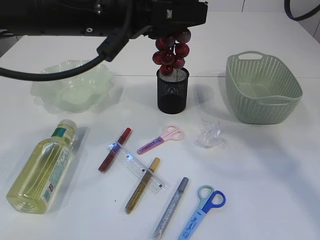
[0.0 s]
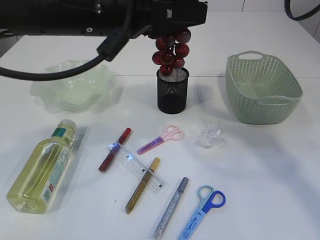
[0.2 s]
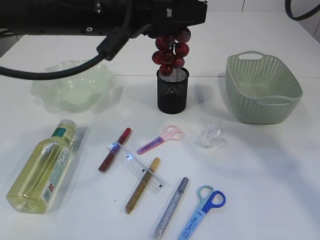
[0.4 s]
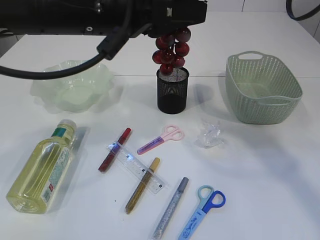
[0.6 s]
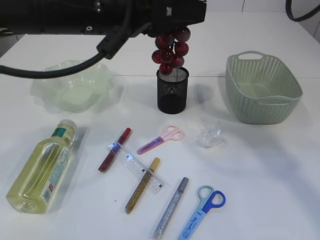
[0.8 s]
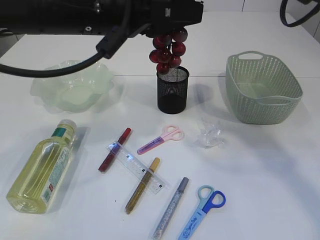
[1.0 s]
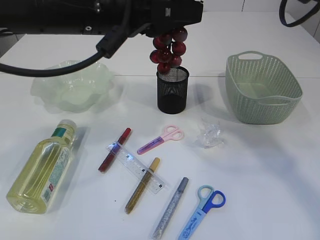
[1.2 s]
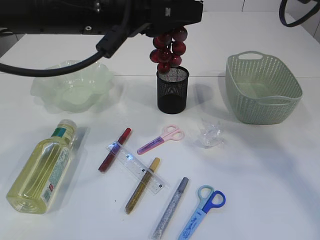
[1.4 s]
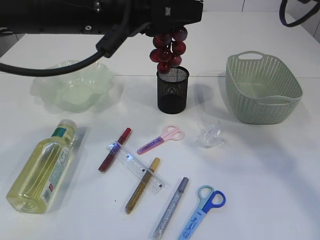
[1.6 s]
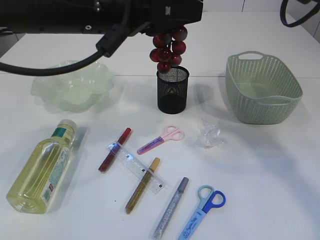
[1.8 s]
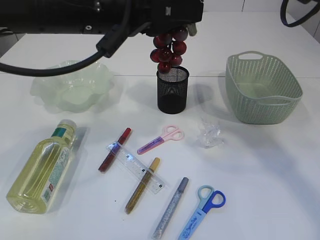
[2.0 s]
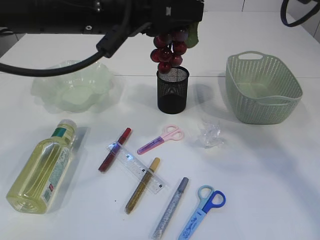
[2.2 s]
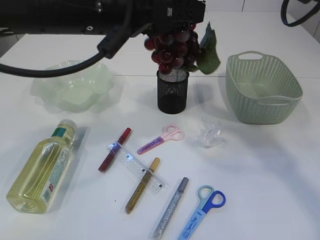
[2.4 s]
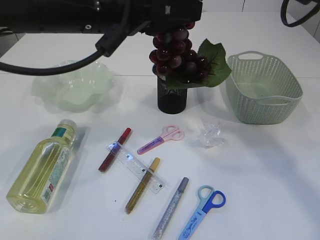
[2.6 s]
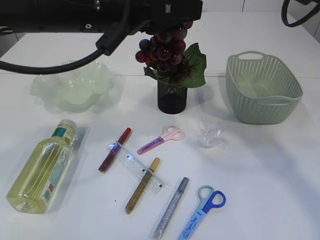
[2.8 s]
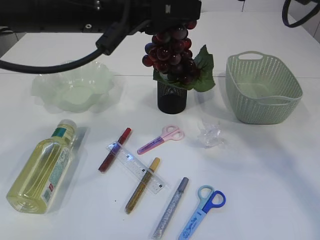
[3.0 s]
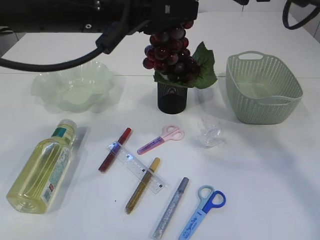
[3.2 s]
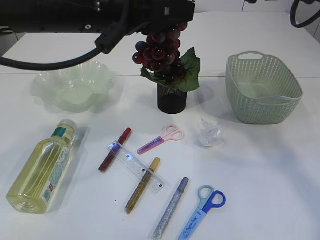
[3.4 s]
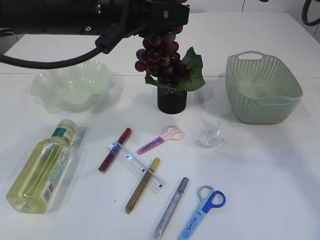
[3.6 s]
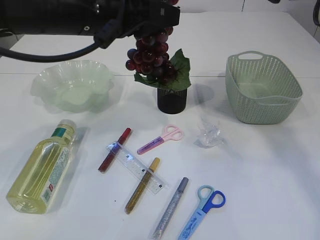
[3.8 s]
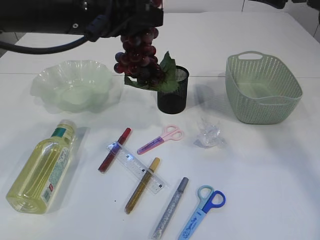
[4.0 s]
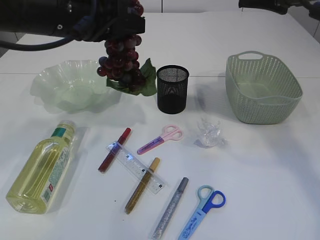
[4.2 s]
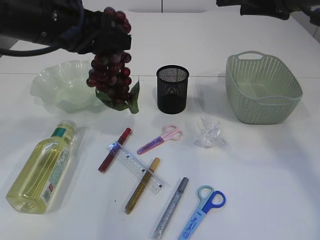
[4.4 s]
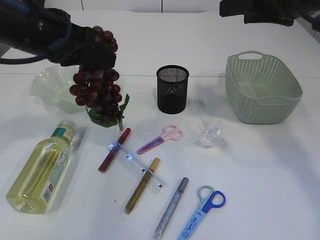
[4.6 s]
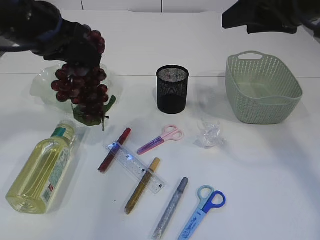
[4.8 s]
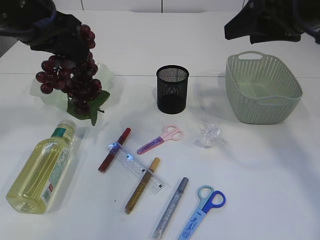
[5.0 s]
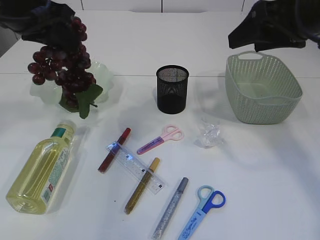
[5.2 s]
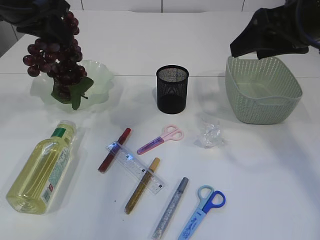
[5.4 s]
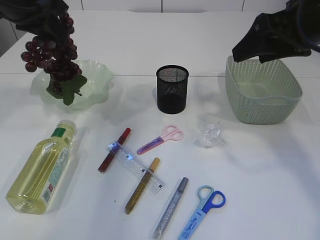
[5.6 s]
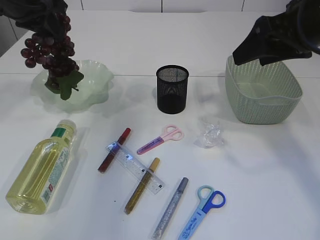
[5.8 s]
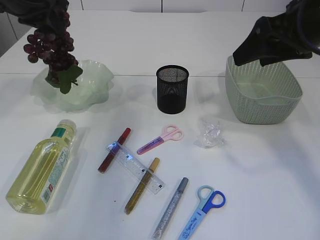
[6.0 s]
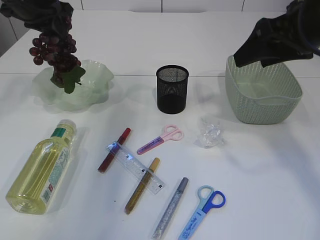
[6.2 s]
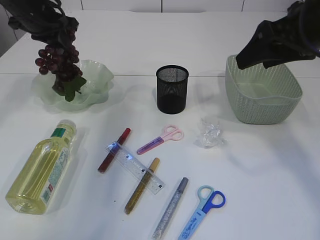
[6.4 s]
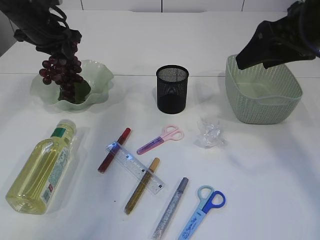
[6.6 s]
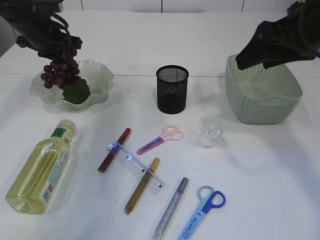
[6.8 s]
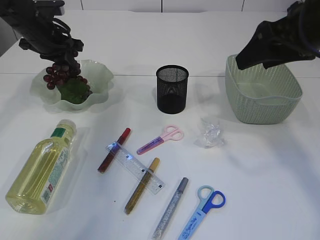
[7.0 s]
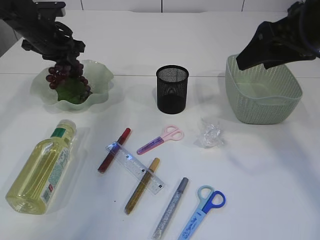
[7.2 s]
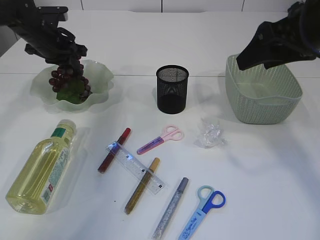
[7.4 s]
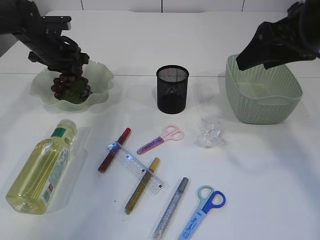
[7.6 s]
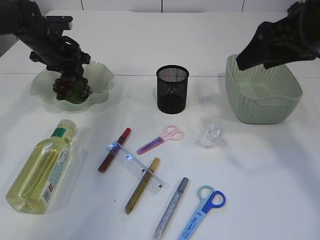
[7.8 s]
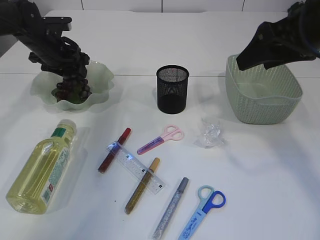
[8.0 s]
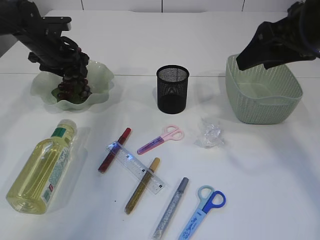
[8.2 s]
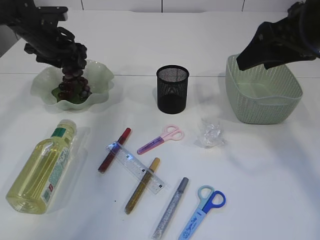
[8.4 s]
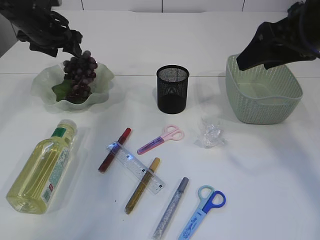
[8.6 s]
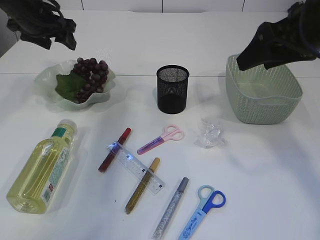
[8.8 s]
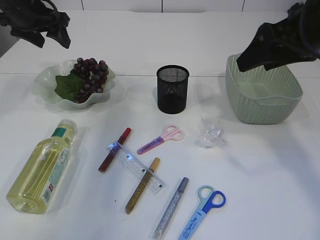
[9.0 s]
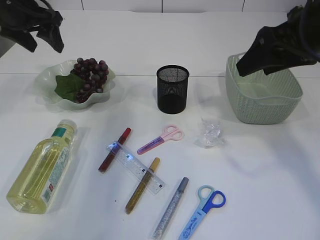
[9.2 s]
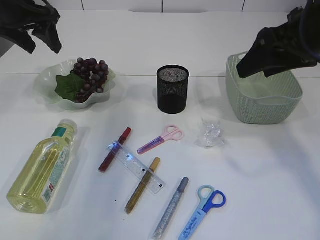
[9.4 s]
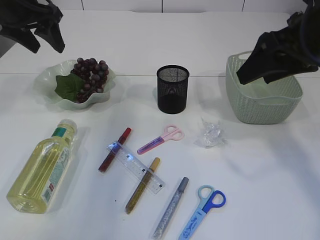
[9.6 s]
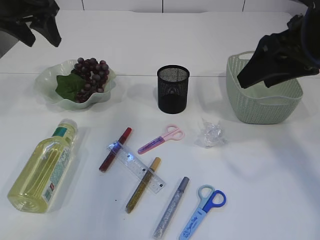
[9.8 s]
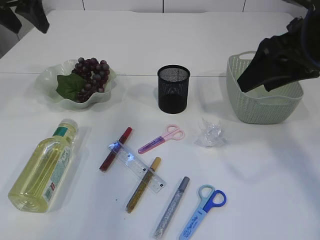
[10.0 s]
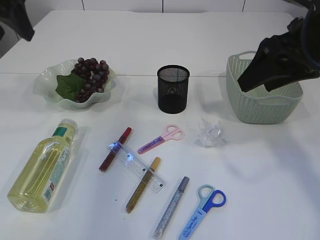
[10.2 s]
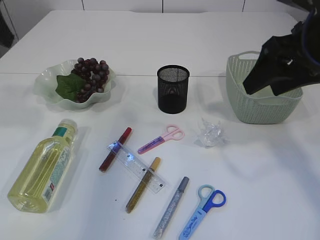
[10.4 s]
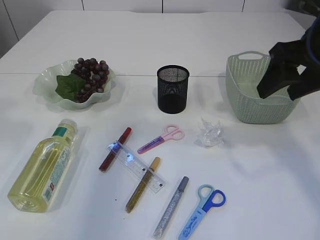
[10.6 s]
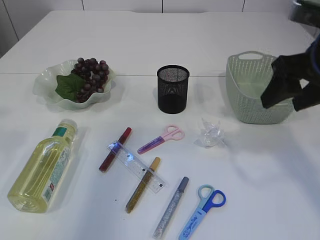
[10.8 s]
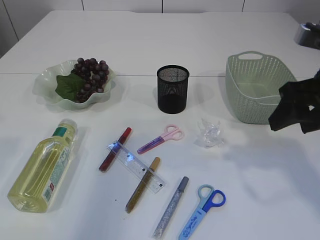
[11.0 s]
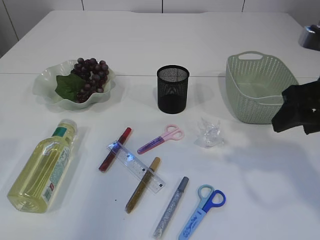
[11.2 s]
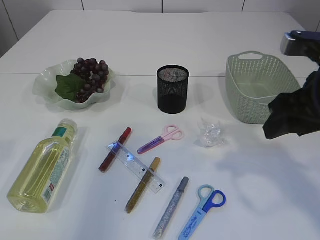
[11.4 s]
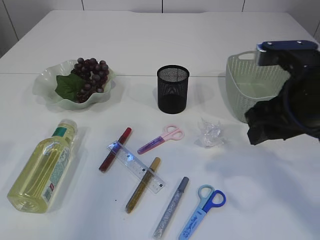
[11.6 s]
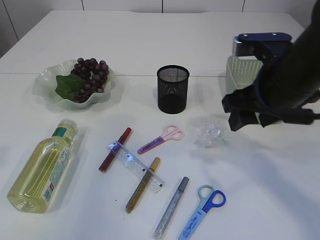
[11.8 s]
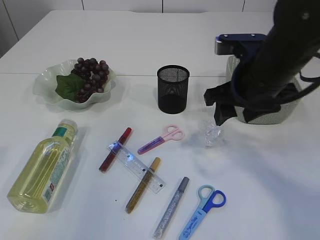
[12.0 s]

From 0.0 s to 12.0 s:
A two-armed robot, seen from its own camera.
Step, from 0.0 s to 4.2 s: Hand over the grapes.
Step, from 4.4 s to 8.8 s: Place the grapes in the plate.
From 0.0 s to 1.6 s: There are only small adjustments of the grippers.
From 1.6 s to 3.0 s: The right gripper opens.
From 3.0 s to 4.4 s: The left gripper travels to the left by some 5 cm; the right gripper goes about 5 cm to the right.
From 4.4 s to 6.0 s: The left gripper is displaced forward and to the left by about 15 cm.
From 6.0 s to 7.6 s: The left gripper goes some 15 cm downward and forward.
From 7.6 s to 9.0 s: The left gripper goes roughly 10 cm upward, and opens its fingers.
From 9.0 s to 10.4 s: The left gripper moves backward and upward, some 20 cm.
From 10.4 s to 12.0 s: The left gripper shifts some 15 cm backward. The right gripper is displaced downward and to the left by approximately 10 cm.

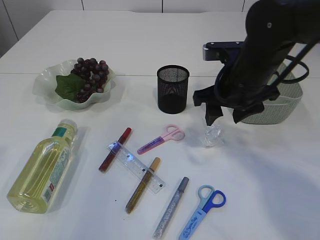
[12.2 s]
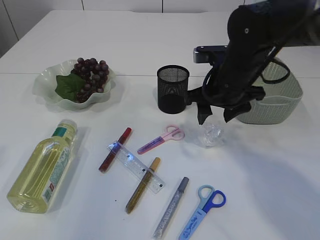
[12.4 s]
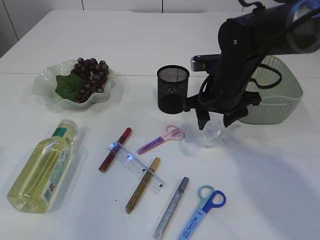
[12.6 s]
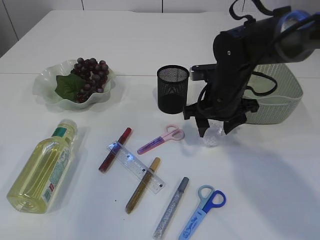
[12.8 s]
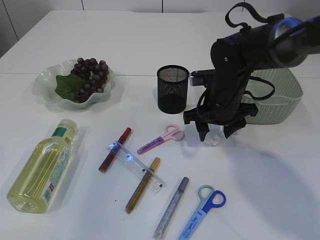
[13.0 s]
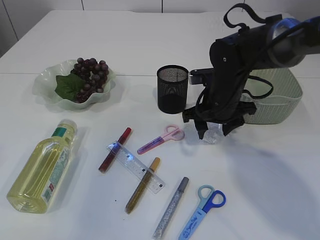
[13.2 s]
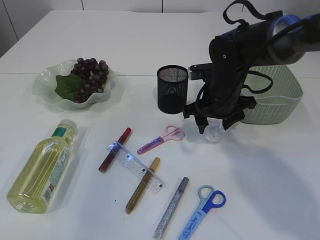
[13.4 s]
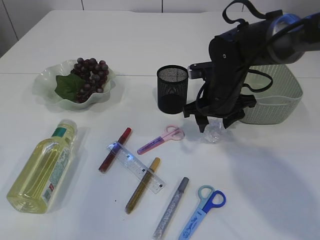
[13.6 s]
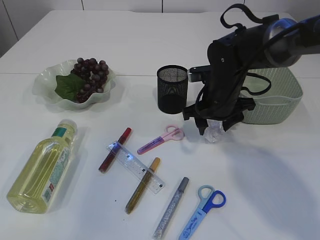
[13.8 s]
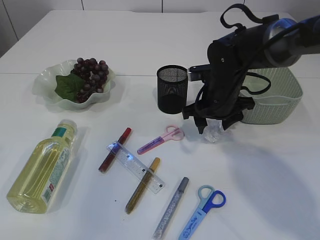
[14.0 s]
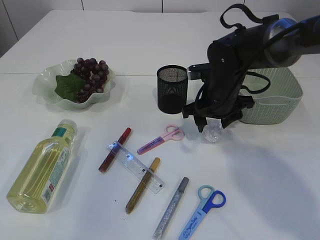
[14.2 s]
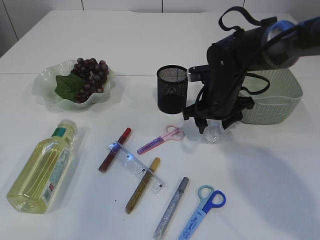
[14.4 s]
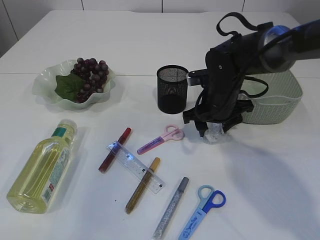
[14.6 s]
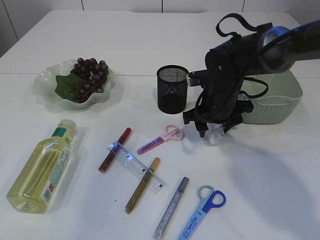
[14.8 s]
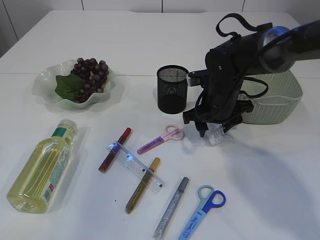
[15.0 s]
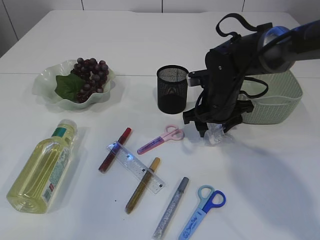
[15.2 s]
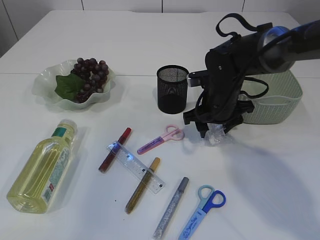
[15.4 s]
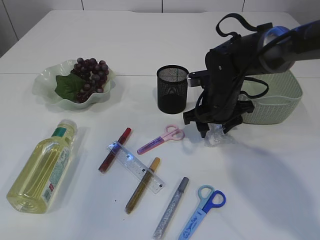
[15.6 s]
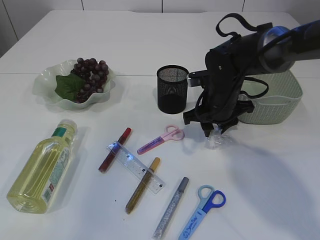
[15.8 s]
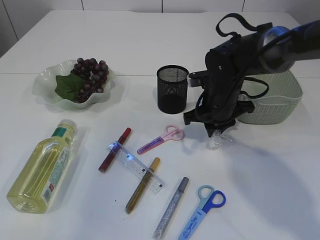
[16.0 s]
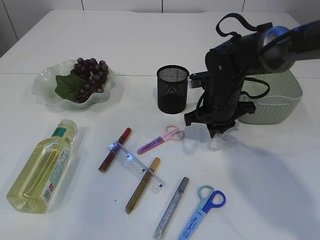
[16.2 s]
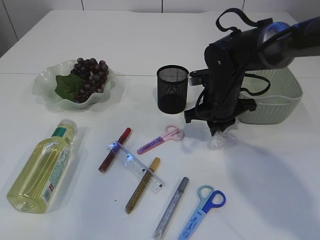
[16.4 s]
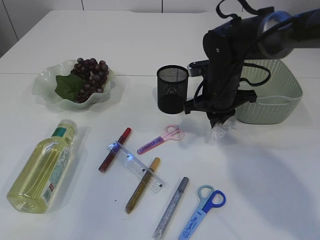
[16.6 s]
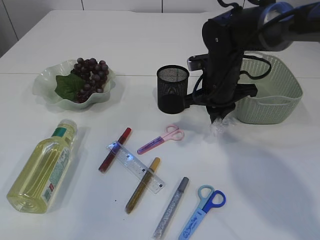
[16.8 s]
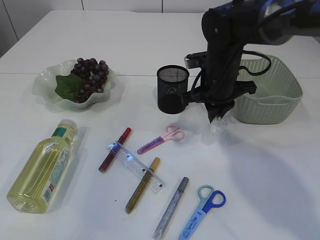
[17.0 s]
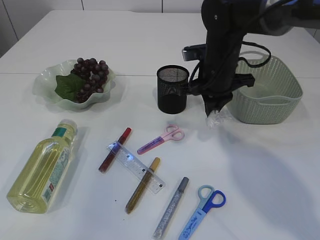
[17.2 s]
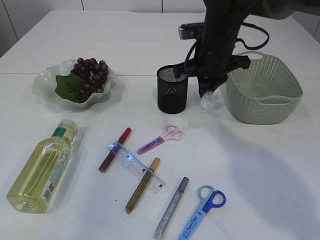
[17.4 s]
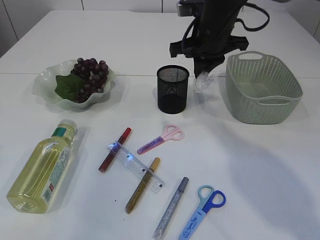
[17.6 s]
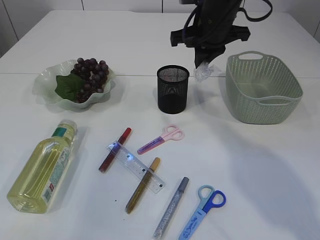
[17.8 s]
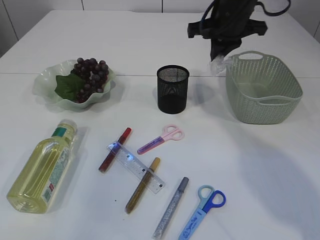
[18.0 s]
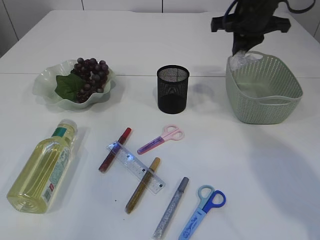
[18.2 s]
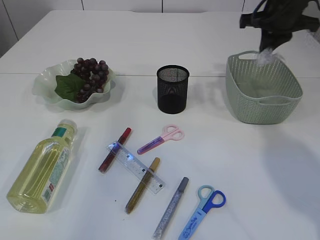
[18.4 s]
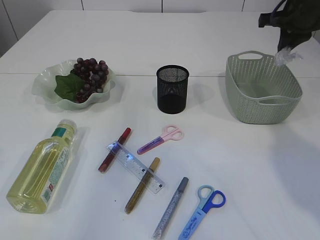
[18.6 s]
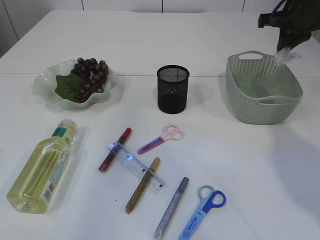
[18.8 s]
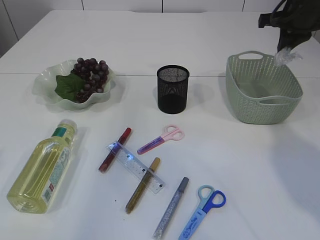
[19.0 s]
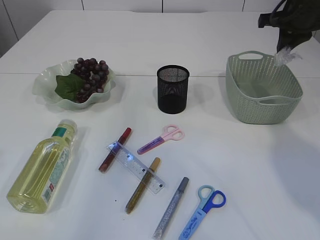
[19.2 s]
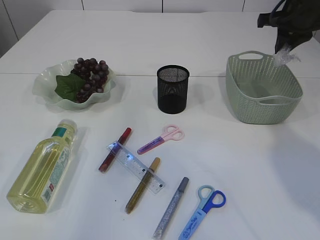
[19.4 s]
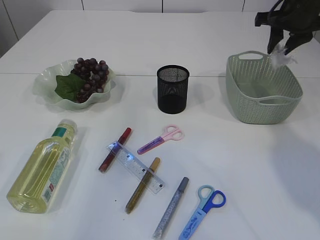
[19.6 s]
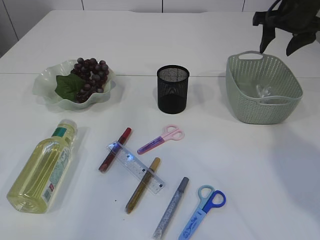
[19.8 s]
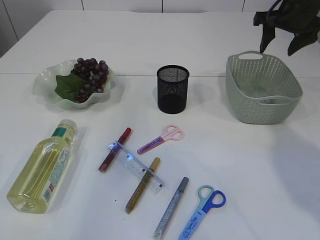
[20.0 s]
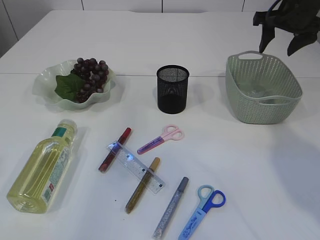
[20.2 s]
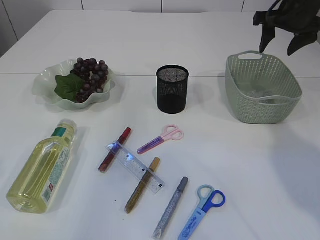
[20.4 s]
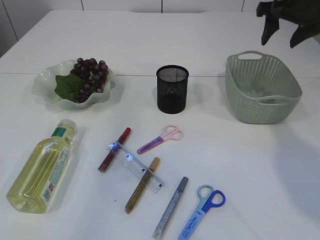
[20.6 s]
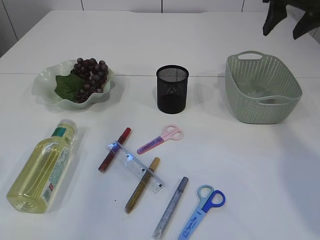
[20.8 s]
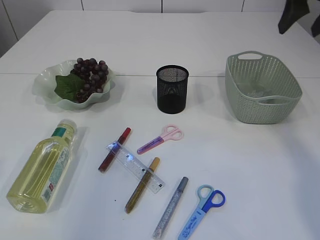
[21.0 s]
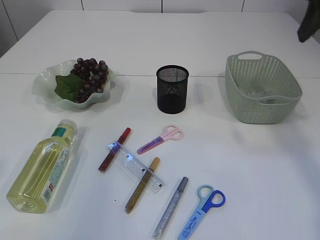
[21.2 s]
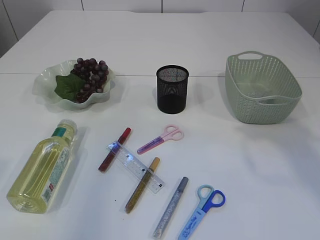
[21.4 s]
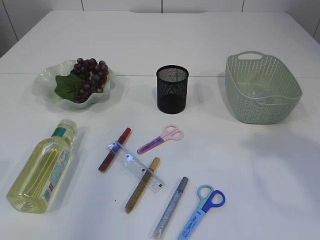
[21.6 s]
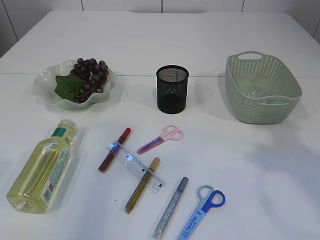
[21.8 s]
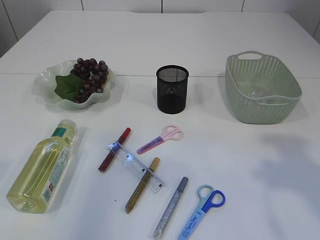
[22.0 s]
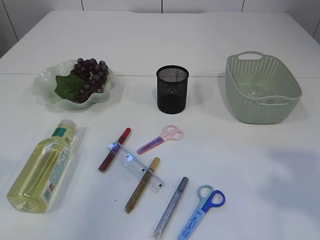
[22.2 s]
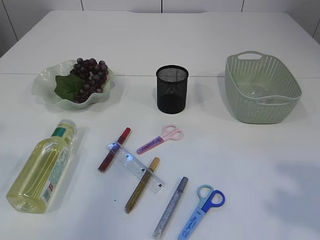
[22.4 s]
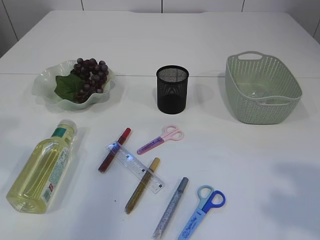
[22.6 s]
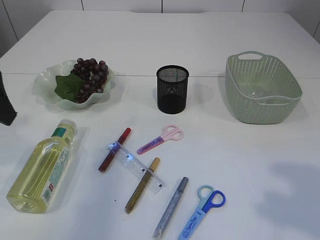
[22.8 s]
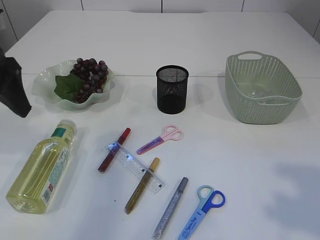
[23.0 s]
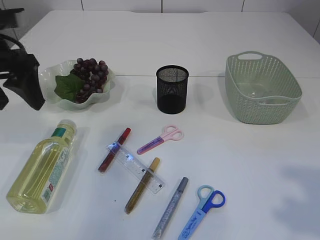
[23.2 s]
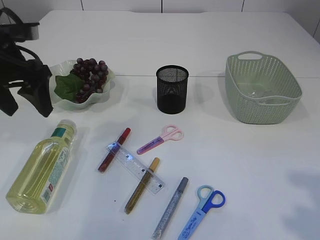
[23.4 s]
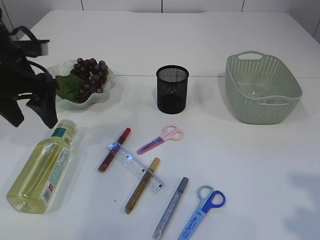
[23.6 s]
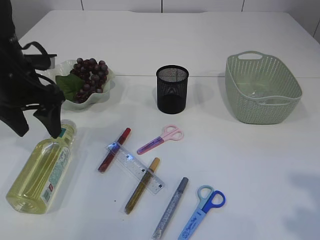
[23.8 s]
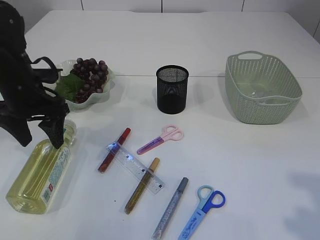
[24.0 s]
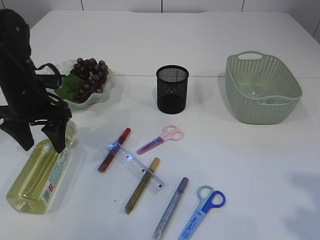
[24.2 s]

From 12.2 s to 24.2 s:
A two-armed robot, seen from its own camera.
Step, from 12.2 s to 17.0 s: Pick up the plastic.
Step, from 17.2 s to 19.8 s: Place the plastic in the basket.
From 12.2 s to 13.8 s: The right gripper travels downward and forward by some 10 cm.
From 13.8 s to 15.2 s: The two grippers keep their place.
From 15.2 s to 16.6 s: The right gripper closes its fingers.
From 16.6 s to 18.2 s: The right gripper moves upward and to the right, about 15 cm.
From 18.2 s to 19.8 s: The right gripper goes approximately 10 cm to the right, and opens its fingers.
From 19.8 s to 21.2 s: The right gripper is displaced backward and upward by about 15 cm.
From 21.2 s to 22.6 s: The right gripper goes approximately 25 cm backward.
From 22.6 s to 24.2 s: The left gripper shifts approximately 25 cm downward and forward.
